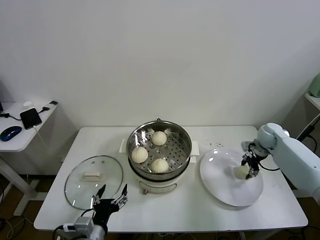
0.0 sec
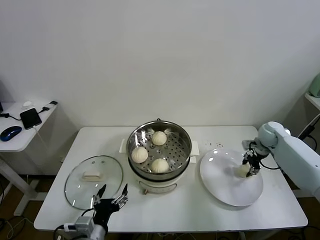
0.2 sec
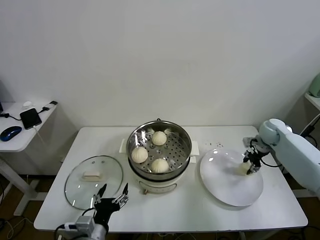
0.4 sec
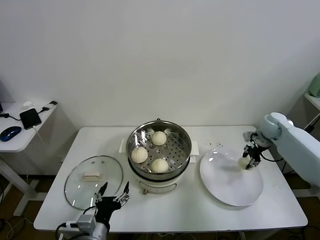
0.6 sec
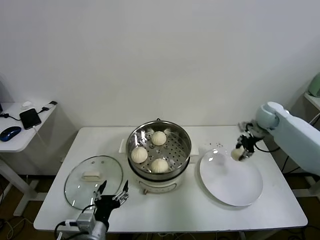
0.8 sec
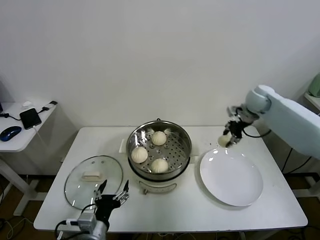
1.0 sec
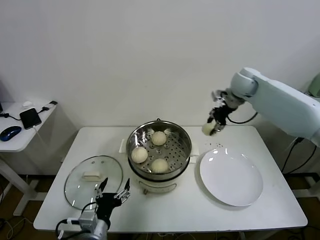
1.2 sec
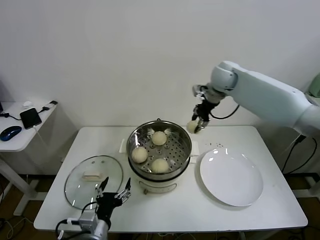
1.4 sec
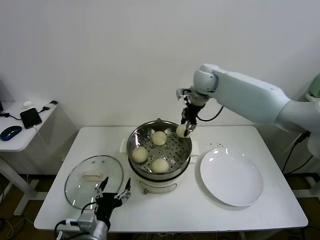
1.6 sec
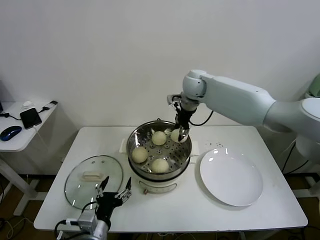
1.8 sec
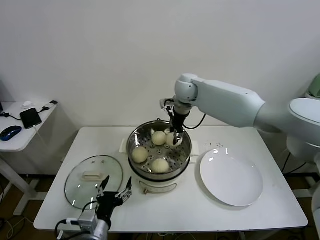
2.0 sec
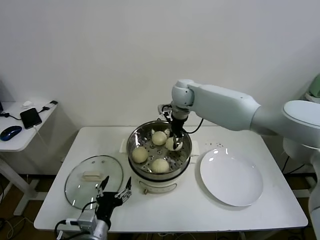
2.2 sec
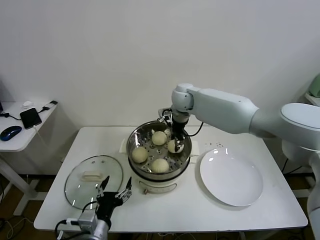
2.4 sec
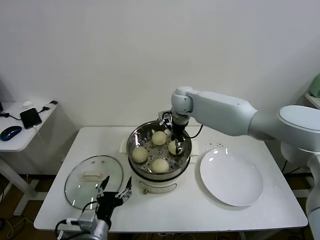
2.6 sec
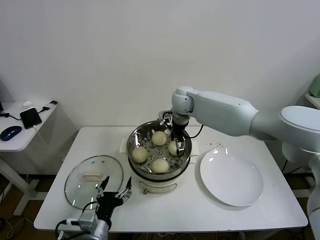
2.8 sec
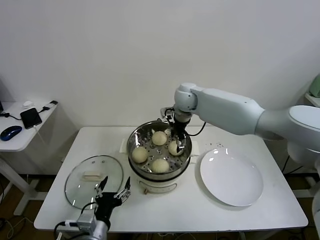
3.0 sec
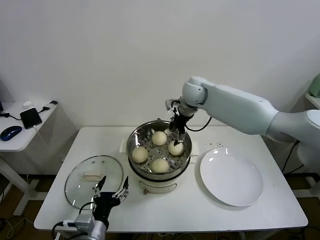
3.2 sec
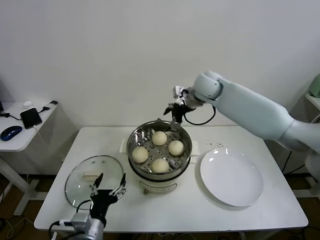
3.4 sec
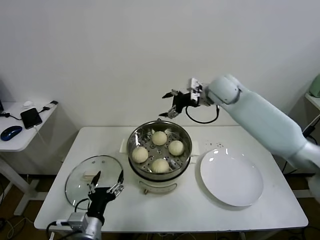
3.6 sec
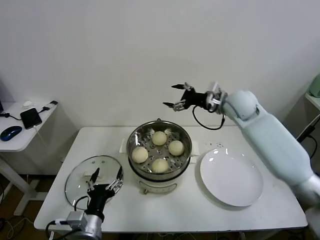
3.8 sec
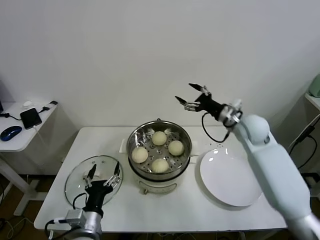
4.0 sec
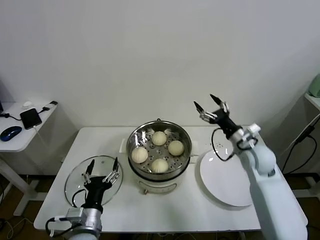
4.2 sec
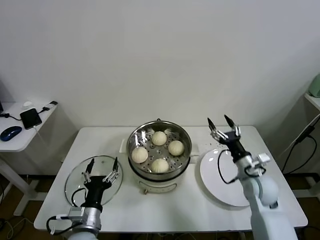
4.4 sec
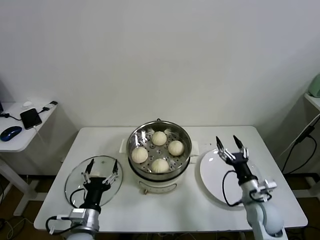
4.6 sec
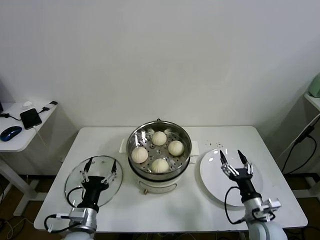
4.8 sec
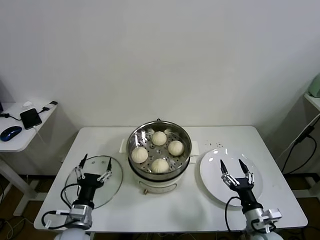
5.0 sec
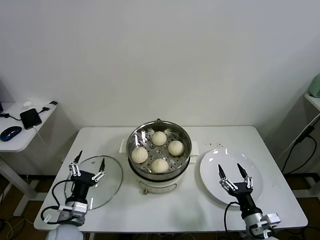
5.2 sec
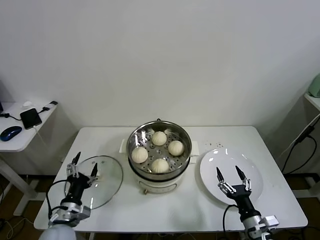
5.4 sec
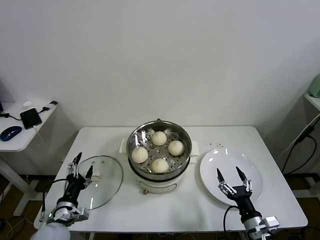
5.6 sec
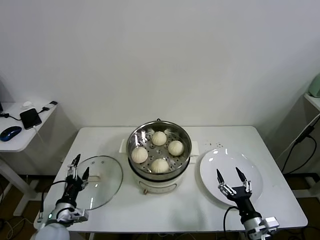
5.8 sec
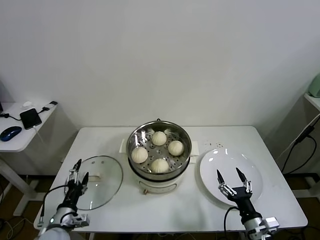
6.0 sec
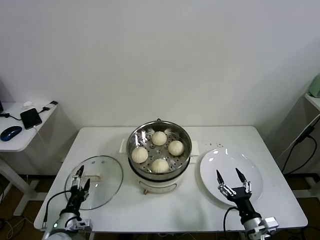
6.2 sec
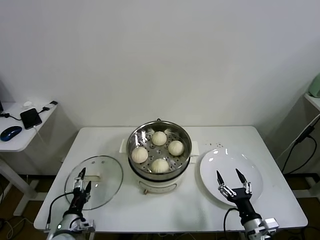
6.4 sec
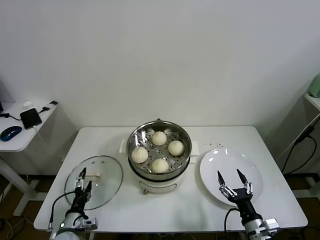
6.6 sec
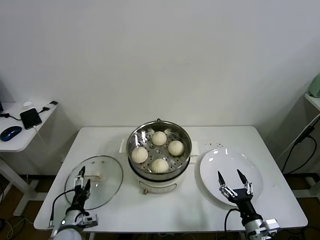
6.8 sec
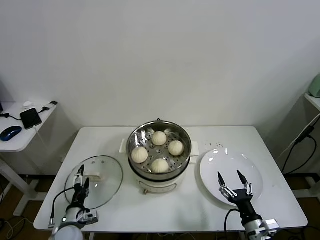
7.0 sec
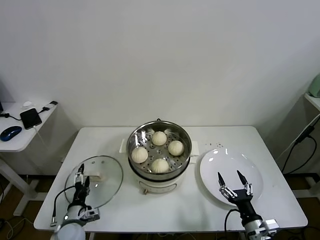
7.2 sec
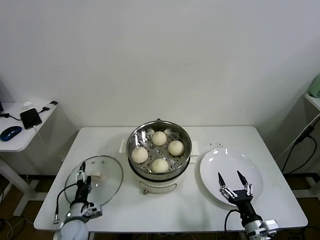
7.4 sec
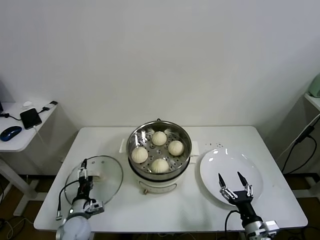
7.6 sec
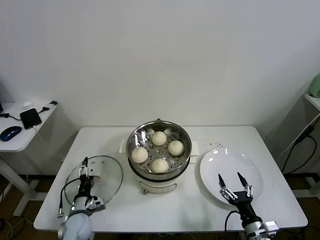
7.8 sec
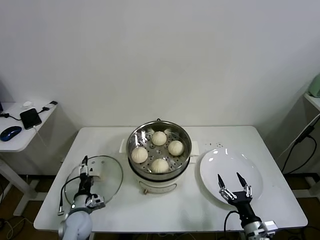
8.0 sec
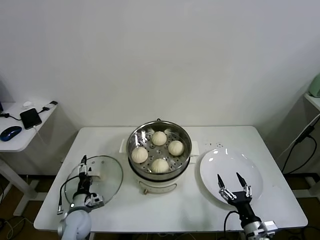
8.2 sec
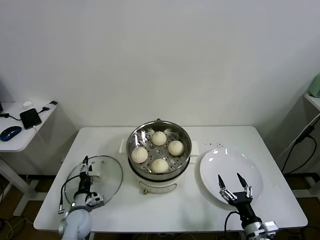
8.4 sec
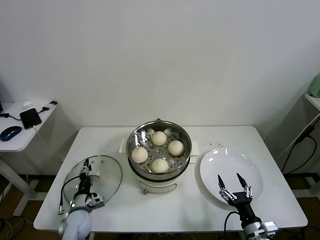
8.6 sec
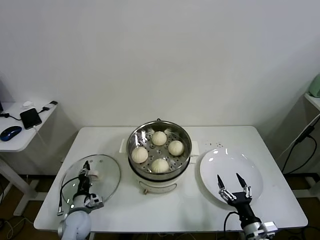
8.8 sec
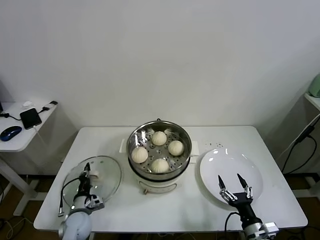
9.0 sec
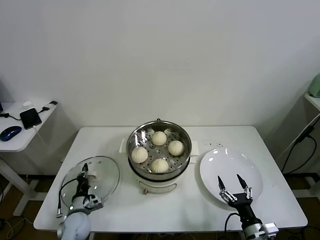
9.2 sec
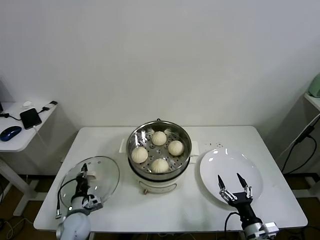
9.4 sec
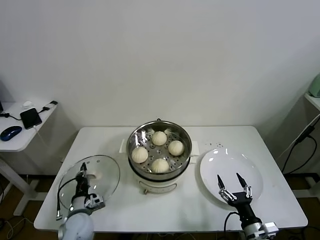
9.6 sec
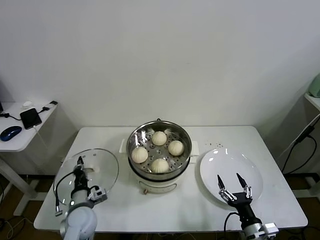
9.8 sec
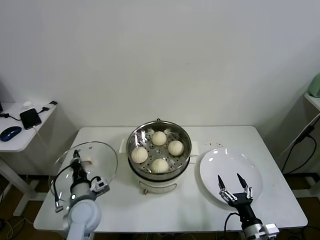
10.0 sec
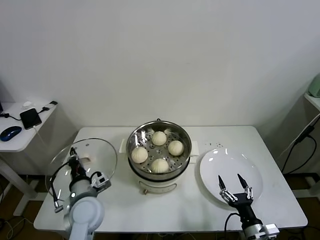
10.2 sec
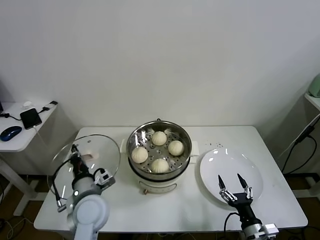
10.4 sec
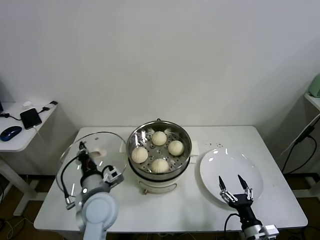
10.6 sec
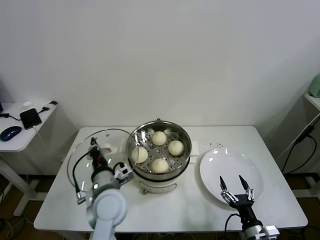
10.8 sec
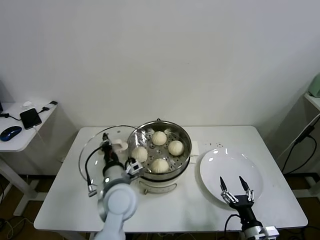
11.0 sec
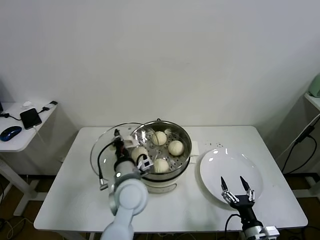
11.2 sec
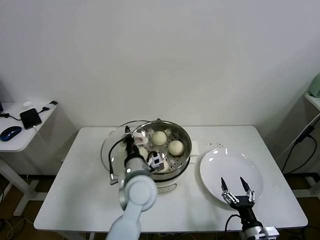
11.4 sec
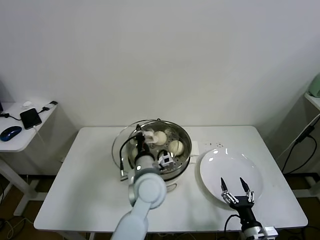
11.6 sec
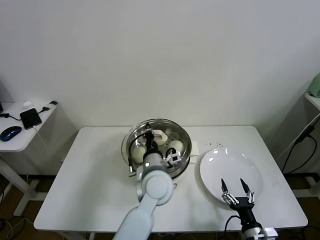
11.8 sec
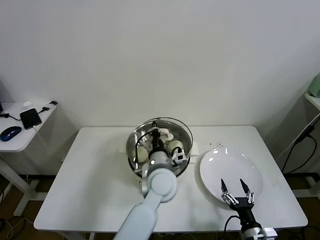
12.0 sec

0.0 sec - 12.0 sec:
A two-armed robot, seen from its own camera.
Task of the whole recording: take steamed baozi put them in steamer.
Step, 0.2 sec - 3.0 sec: Place the baozi on the steamer with right gripper.
Step, 3.2 sec - 9.0 sec: Grasp the pot lid with left gripper.
0.0 sec - 1.6 sec: The right gripper is displaced to the left and upward by approximately 35 cm, and closes up.
1.6 sec - 3.0 sec: The right gripper goes roughly 10 cm to the left and downward, and opens.
3.0 sec - 4.4 sec: The right gripper shifts roughly 35 cm backward, to the right and downward.
4.4 sec - 6.0 sec: The right gripper goes roughly 20 cm backward and downward; the left gripper is displaced to the left and downward by about 15 cm.
6.0 sec - 7.6 sec: The left gripper is displaced downward by approximately 5 cm.
7.6 sec - 9.0 sec: The left gripper closes.
9.0 sec - 10.4 sec: The left gripper moves upward and to the right, some 20 cm.
10.4 sec - 12.0 sec: The left gripper heads to the right, covering roughly 20 cm.

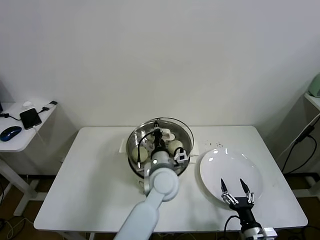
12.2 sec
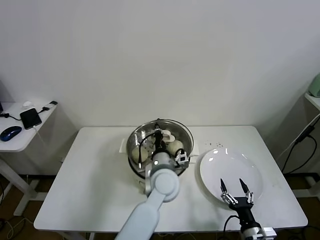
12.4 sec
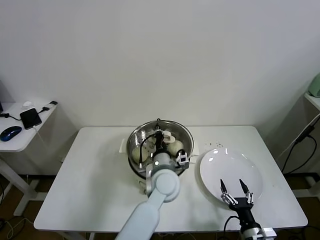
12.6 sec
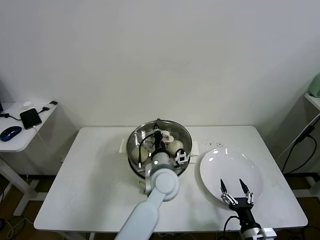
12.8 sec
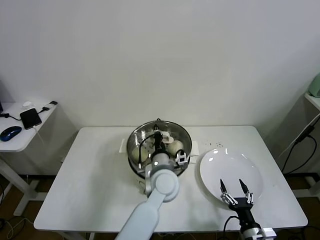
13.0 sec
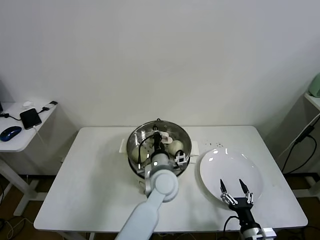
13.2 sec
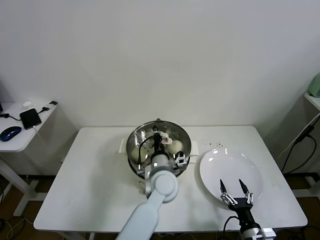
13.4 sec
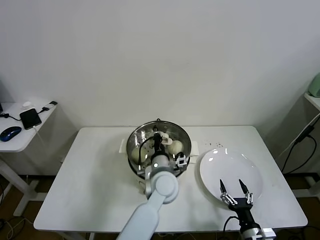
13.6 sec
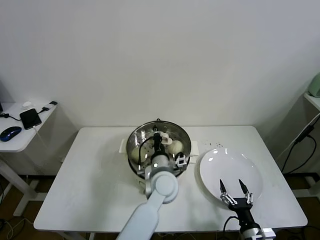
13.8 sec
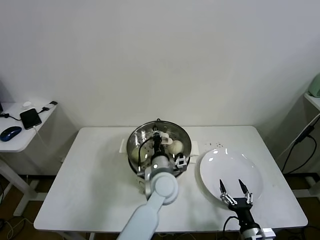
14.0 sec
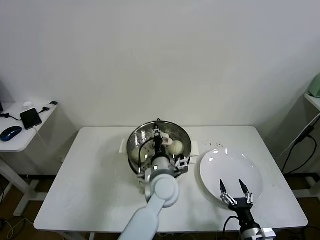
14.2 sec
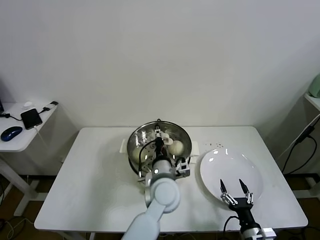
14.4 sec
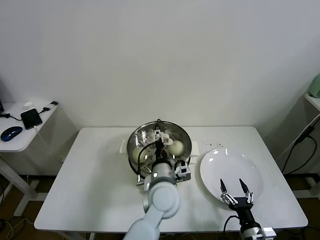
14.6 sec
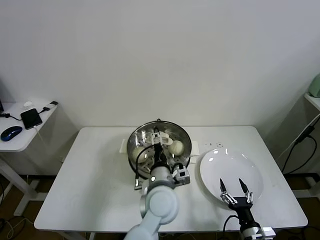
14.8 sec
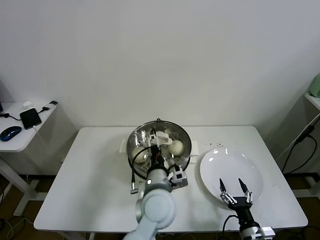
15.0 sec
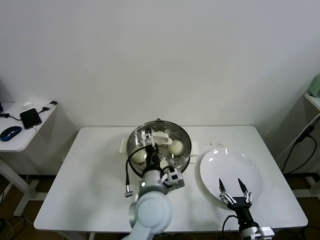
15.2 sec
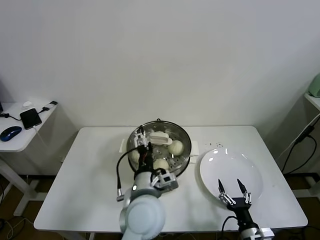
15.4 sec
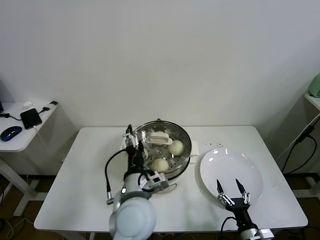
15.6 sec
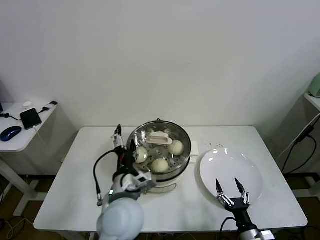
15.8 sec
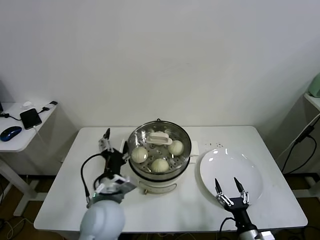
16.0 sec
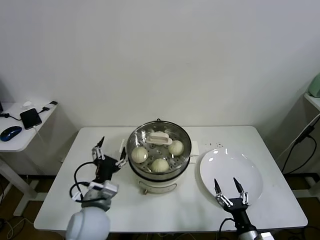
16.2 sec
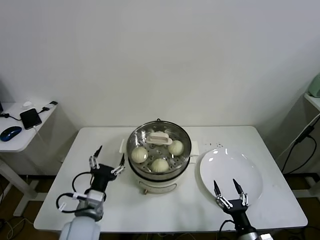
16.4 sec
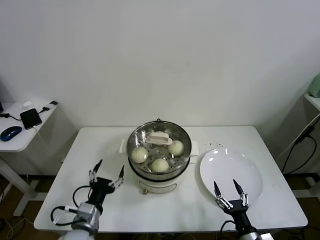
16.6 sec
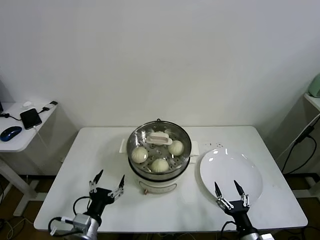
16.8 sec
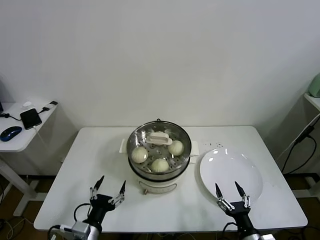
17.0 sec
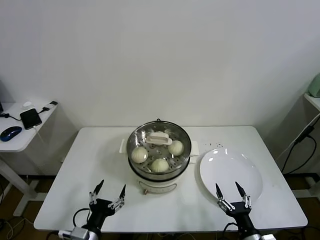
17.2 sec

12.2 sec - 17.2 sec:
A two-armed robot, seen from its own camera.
Task of the whole recording: take steamed baozi put them in steamer.
Step, 12.2 sec - 14.2 sec: Place the pot lid on the steamer with left gripper.
12.2 sec - 13.8 sec: The grippers stay close to where they were, moving slightly.
13.8 sec - 15.6 sec: The left gripper heads backward, upward and to the left, covering approximately 15 cm, and opens.
15.6 sec - 17.2 sec: The left gripper goes roughly 25 cm to the left, downward and backward.

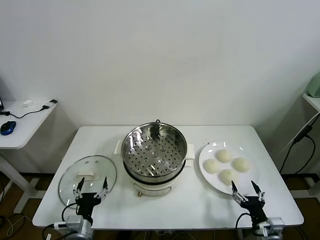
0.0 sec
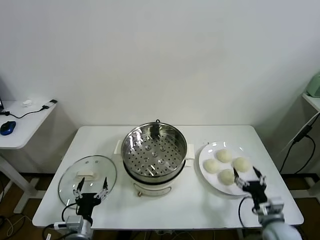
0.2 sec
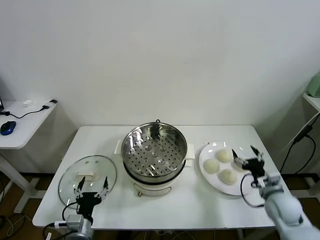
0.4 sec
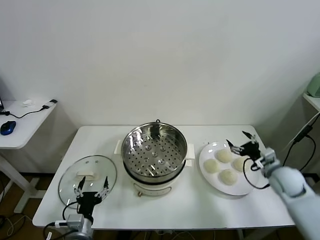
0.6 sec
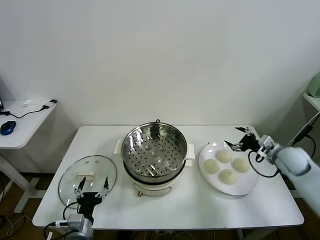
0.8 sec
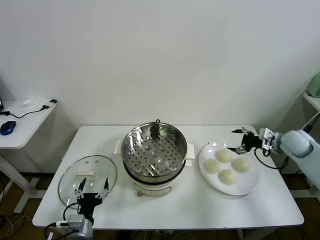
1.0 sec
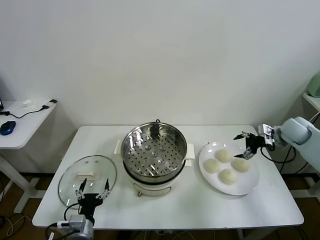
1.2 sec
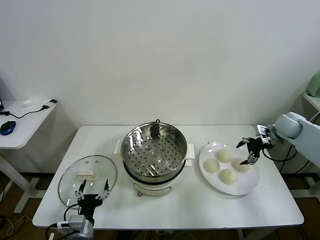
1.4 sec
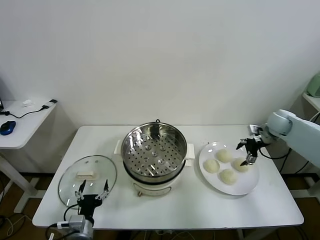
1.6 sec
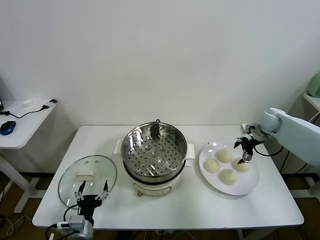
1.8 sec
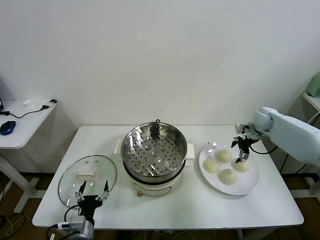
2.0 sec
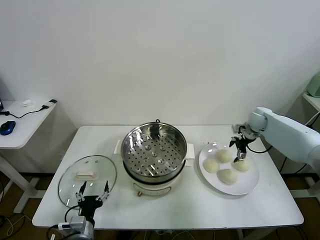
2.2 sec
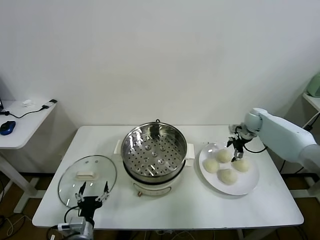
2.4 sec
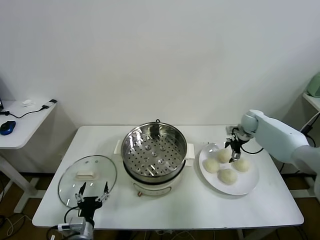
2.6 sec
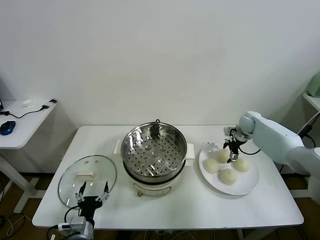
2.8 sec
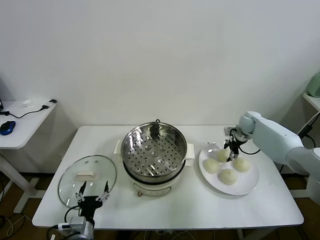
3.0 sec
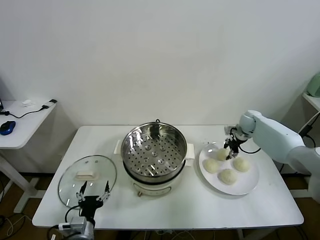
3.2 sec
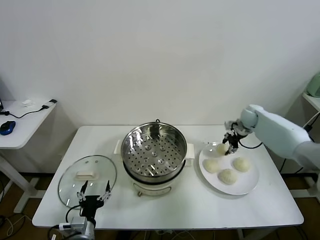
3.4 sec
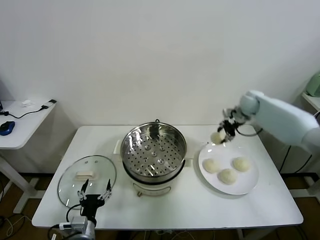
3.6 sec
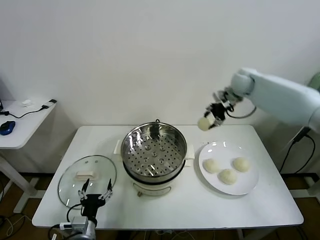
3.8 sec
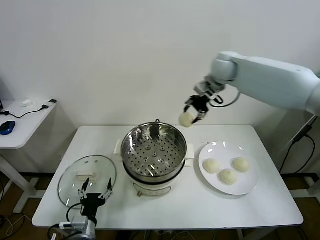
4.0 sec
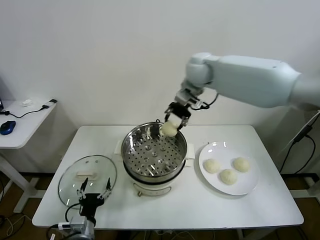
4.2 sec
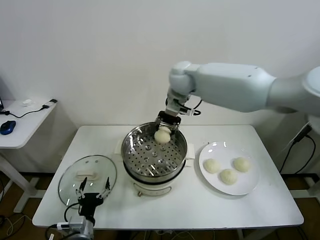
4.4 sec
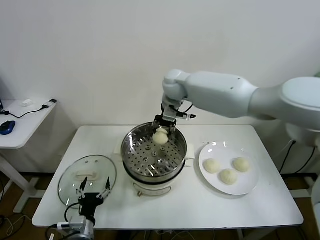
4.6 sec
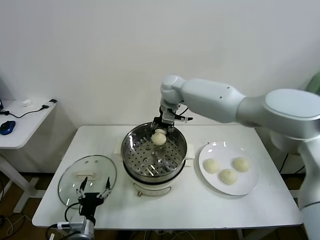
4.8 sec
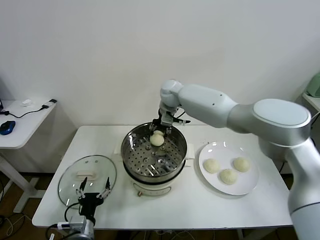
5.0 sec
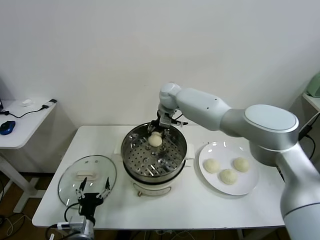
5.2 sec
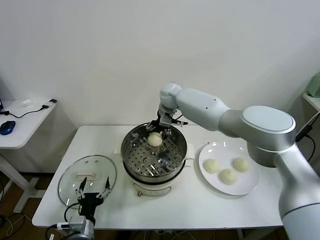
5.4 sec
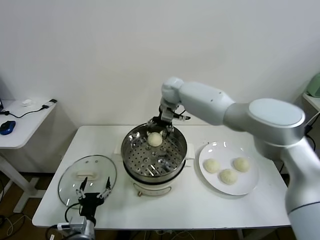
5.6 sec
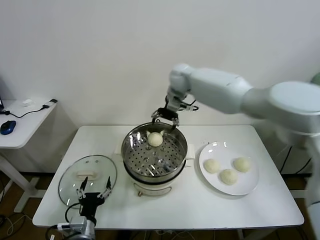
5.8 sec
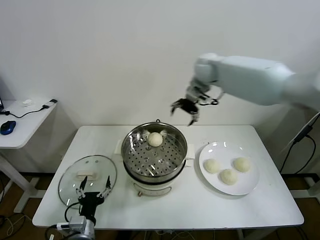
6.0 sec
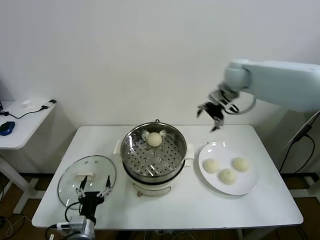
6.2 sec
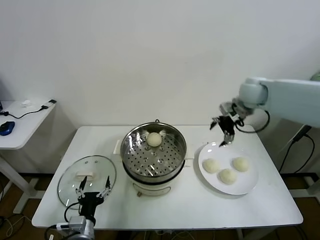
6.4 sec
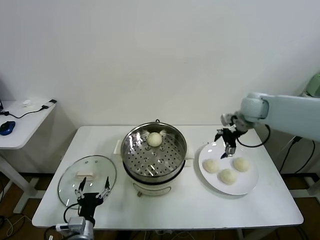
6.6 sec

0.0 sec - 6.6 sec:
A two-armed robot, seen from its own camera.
Task of the whole recording: take steamed baozi put them in steamer.
Step, 0.0 sec - 3.0 sec: Grasp the baozi in the plate with right gripper.
Step, 3.2 sec - 5.4 sec: Place the baozi on the steamer with right gripper.
1.6 sec - 3.2 sec: The right gripper moves forward and to the left, roughly 10 cm, and closes up.
3.2 sec - 5.0 sec: The right gripper goes about 35 cm to the left.
5.0 sec - 6.6 sec: The right gripper heads to the right, covering approximately 30 cm, and opens its fingers.
